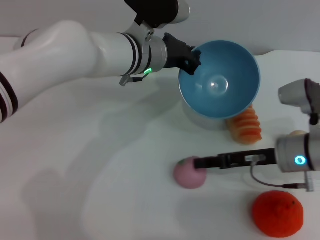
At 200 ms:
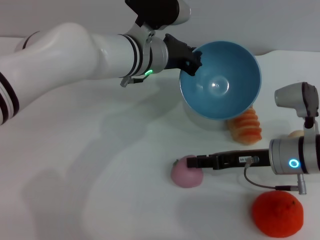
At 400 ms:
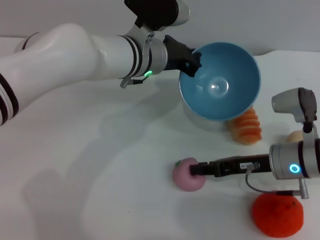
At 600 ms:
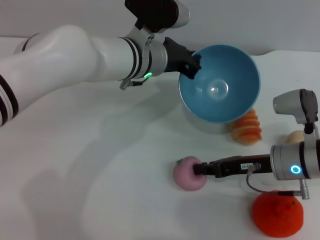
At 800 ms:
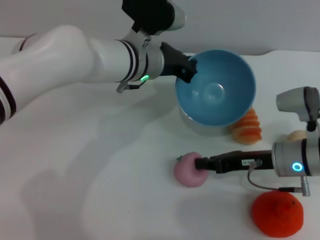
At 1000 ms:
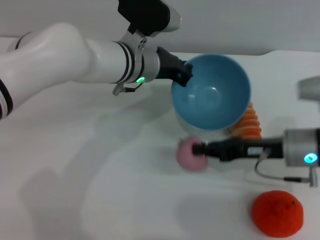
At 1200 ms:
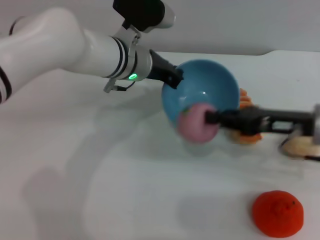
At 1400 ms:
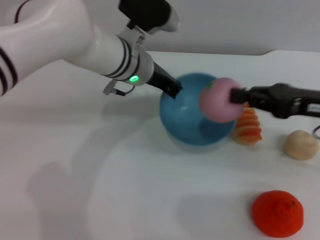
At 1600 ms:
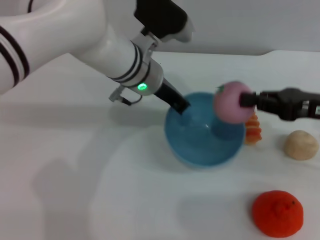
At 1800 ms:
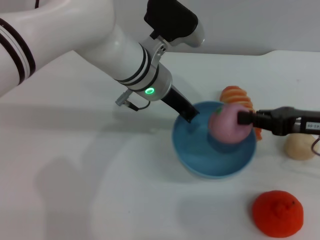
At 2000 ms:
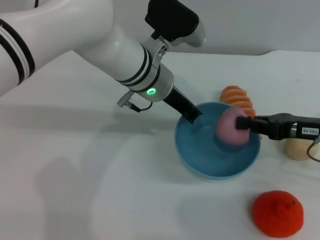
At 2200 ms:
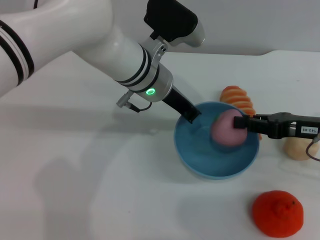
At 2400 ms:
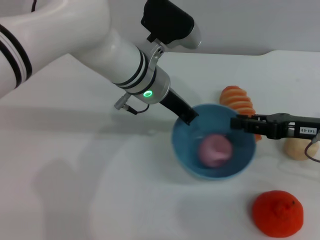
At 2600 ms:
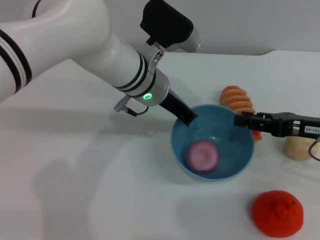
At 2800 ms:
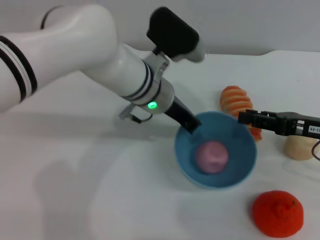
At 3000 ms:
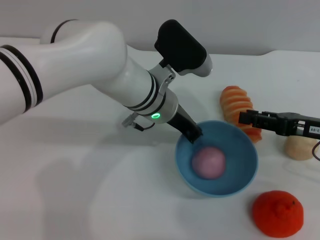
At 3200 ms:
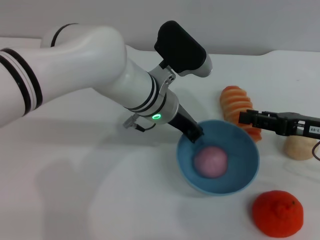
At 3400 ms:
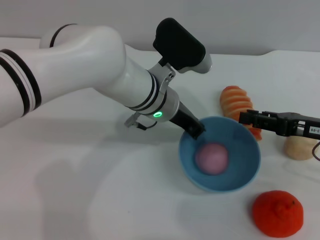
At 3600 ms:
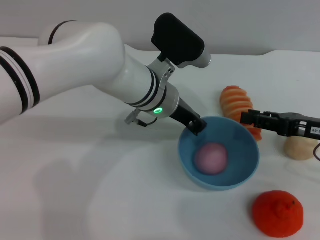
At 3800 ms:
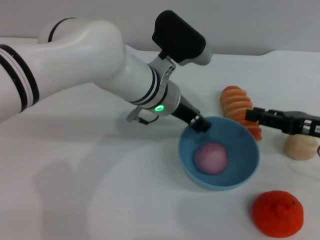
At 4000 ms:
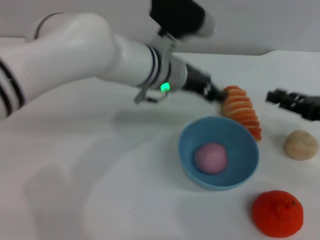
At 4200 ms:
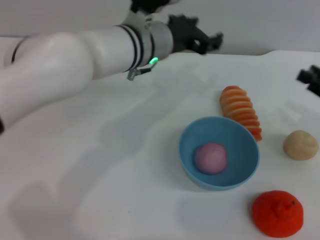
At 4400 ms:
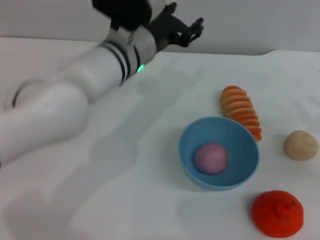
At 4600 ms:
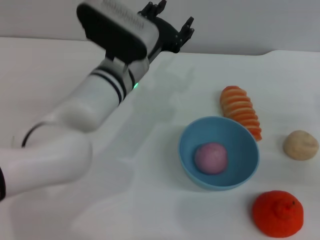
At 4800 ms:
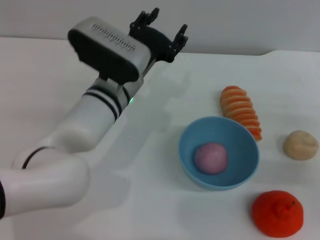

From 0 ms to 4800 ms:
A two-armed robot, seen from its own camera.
Task of the whole recording: put the peach into the blue bowl and pour it out repeatedly.
Step, from 800 ms to 2800 ms: Place the peach into the bowl.
Step, from 3000 ms to 4600 ms: Place the bowl on the table.
From 0 ms to 1600 ms: The right gripper moves upward and to the right, approximately 10 cm, and closes.
From 1600 ms to 3200 ms: The right gripper opens its fingers.
From 3200 ms to 4800 ms: The left gripper moves approximately 5 cm, and opens up; the right gripper heads to the right and downward, covering approximately 10 cm.
